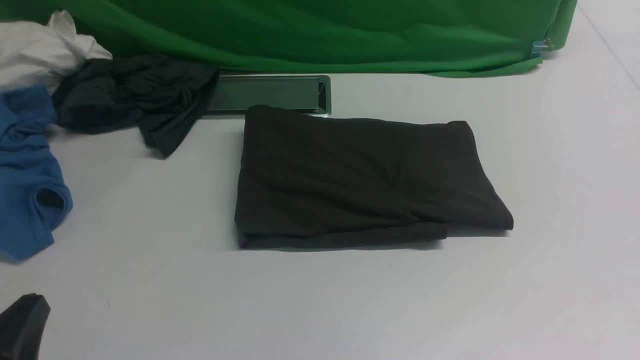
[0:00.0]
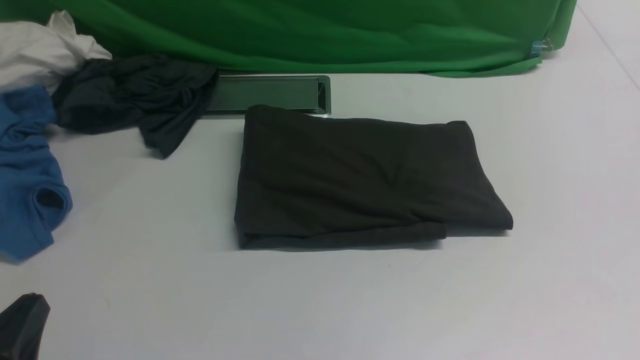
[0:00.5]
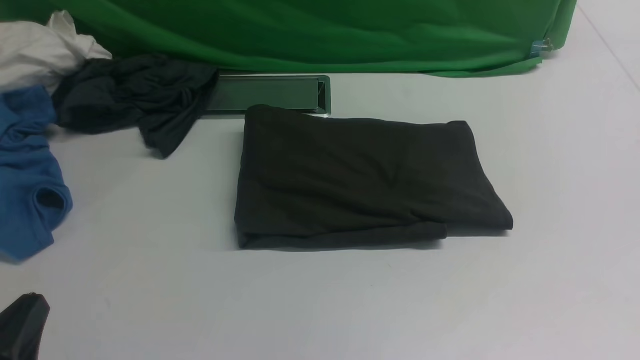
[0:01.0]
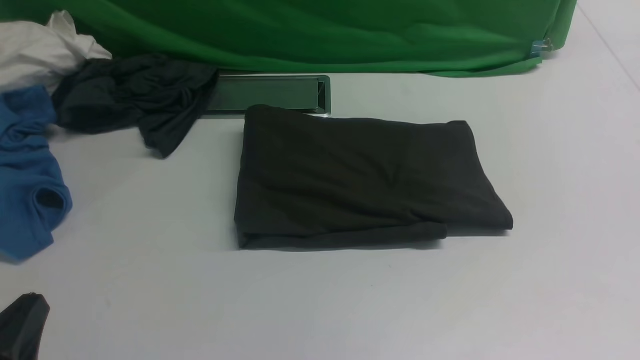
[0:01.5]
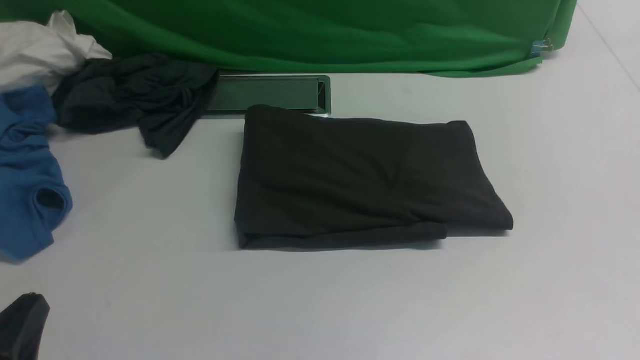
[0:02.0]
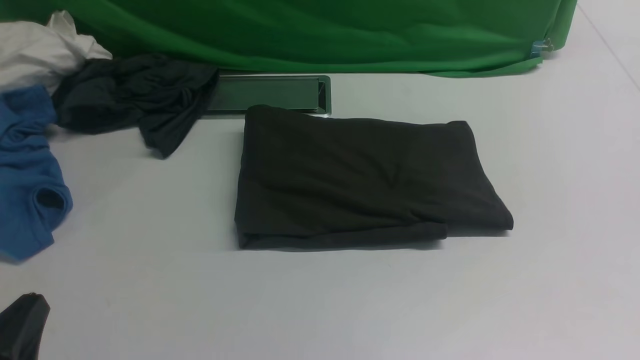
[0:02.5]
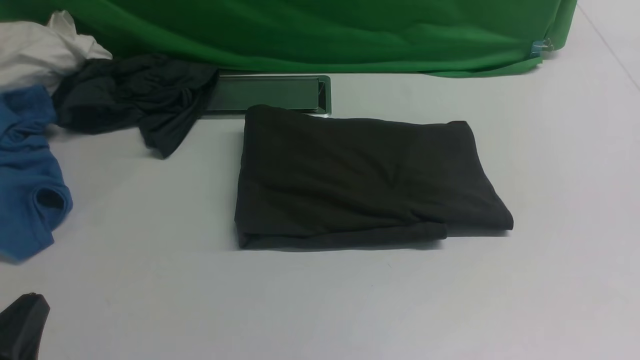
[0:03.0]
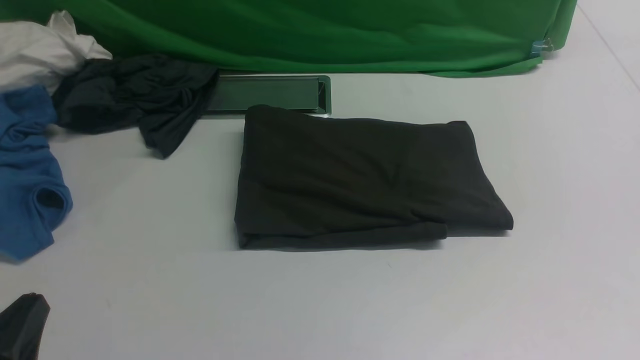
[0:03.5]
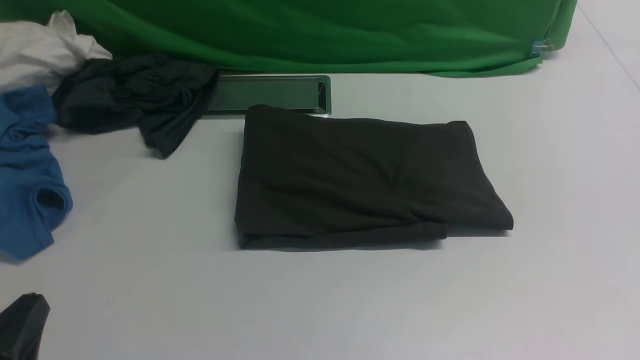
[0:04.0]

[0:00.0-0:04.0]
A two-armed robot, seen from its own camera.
0:02.0 to 0:04.0: Neither gripper changes place.
